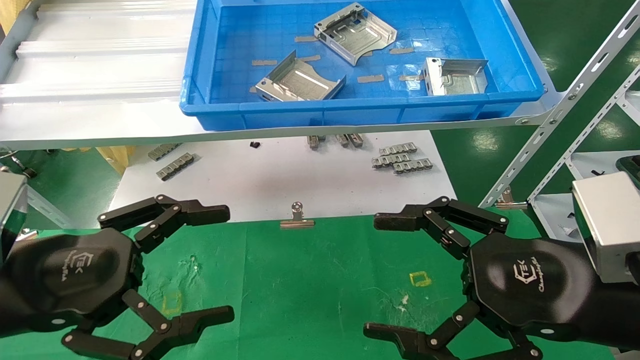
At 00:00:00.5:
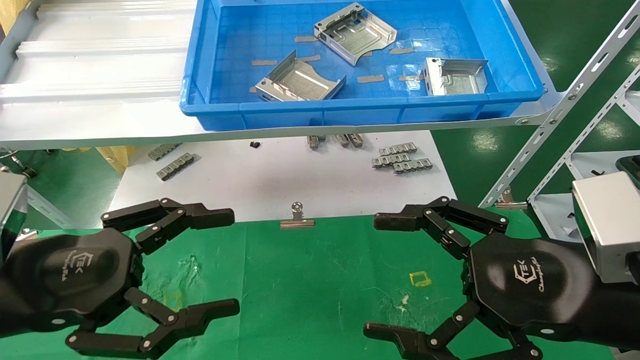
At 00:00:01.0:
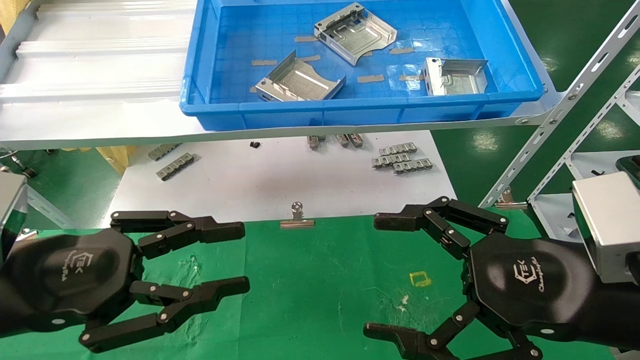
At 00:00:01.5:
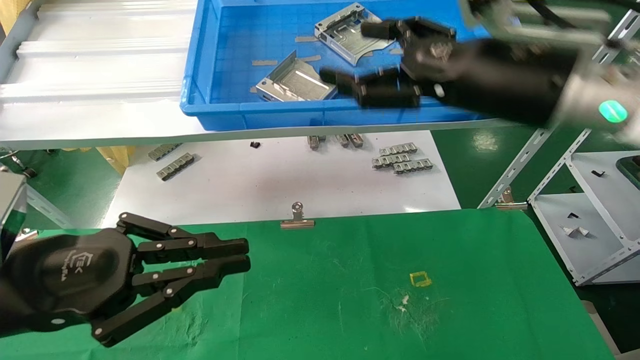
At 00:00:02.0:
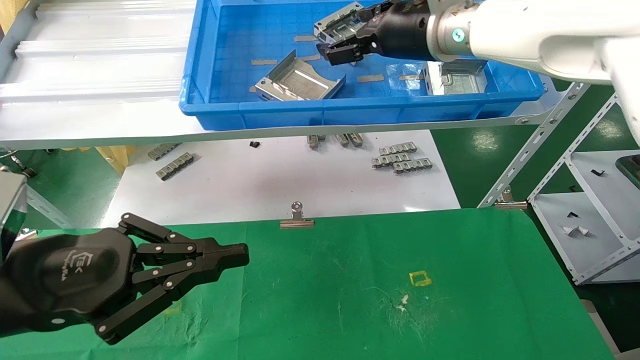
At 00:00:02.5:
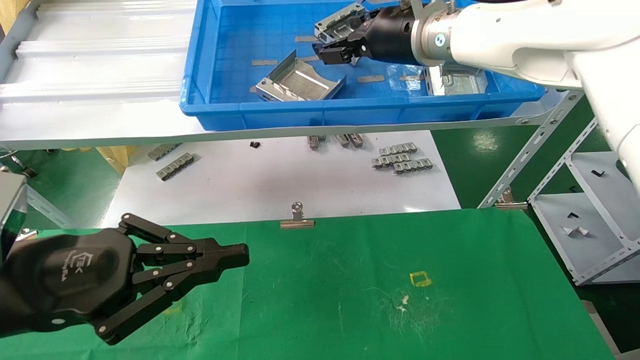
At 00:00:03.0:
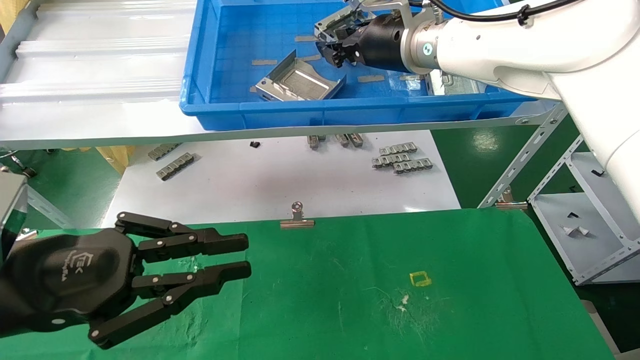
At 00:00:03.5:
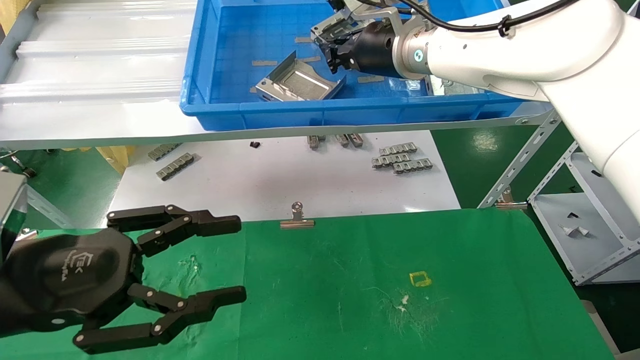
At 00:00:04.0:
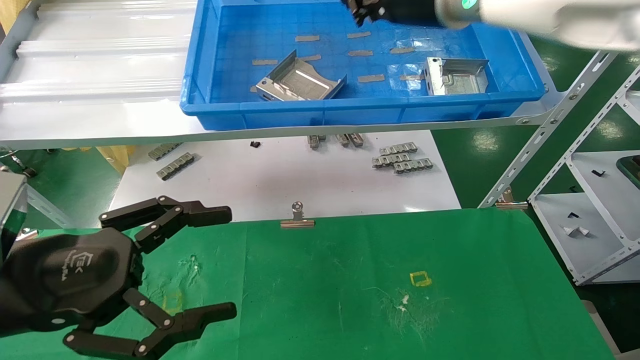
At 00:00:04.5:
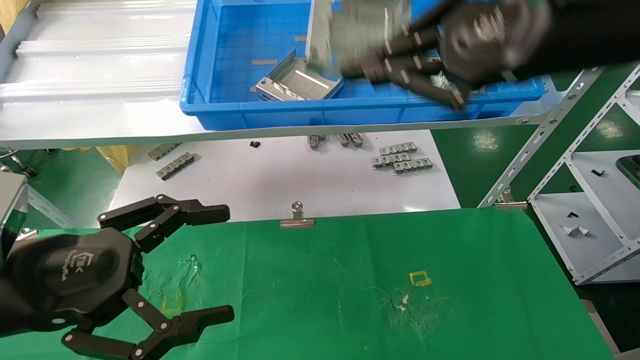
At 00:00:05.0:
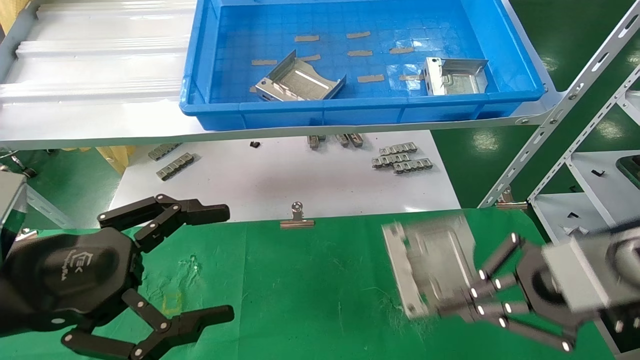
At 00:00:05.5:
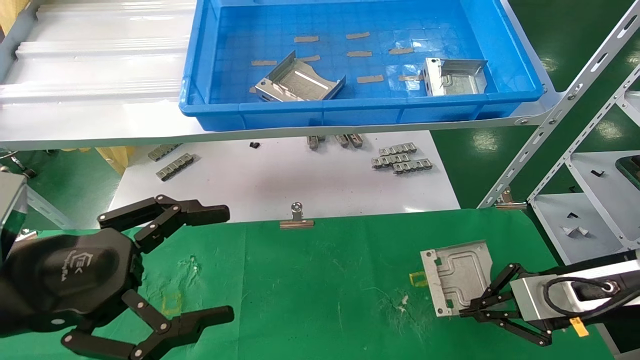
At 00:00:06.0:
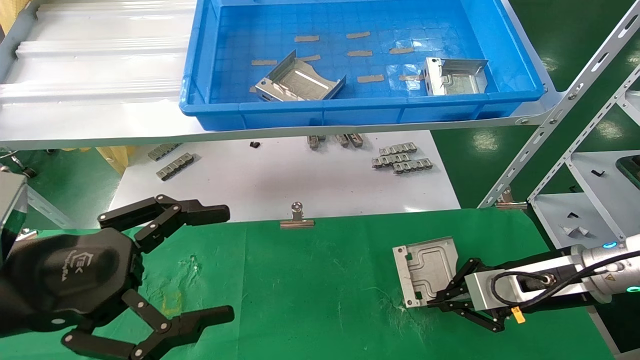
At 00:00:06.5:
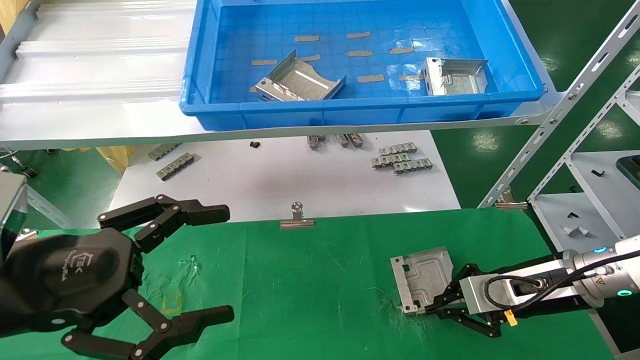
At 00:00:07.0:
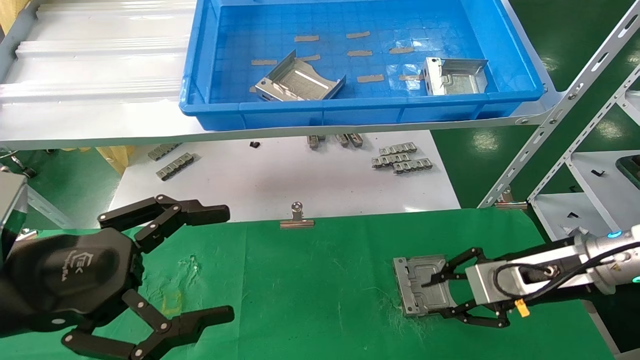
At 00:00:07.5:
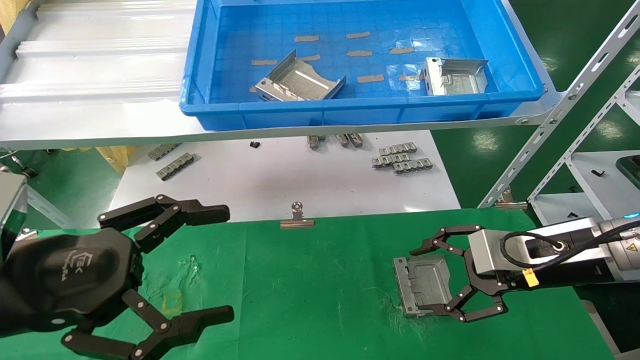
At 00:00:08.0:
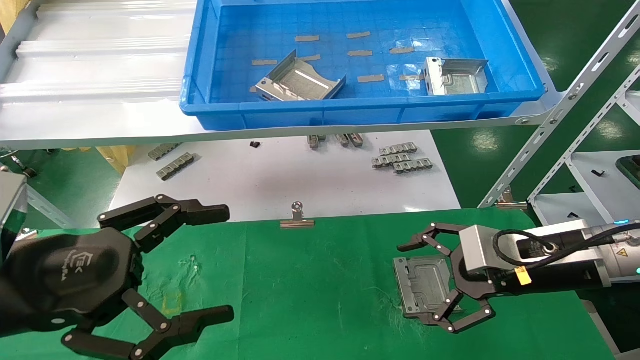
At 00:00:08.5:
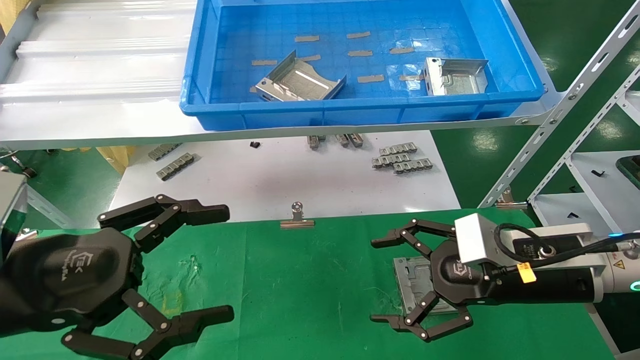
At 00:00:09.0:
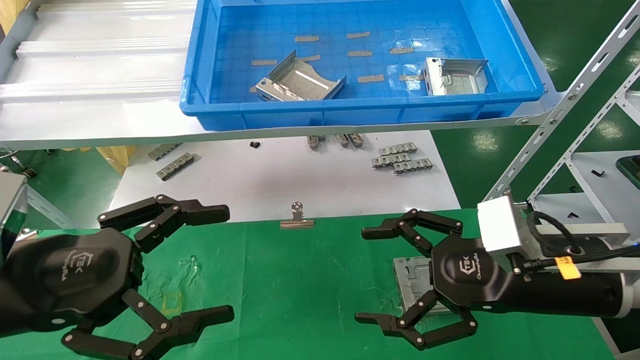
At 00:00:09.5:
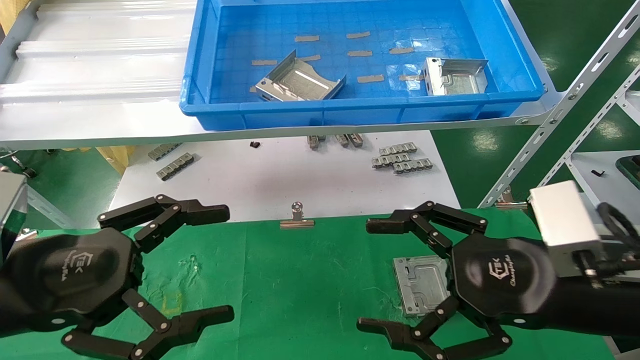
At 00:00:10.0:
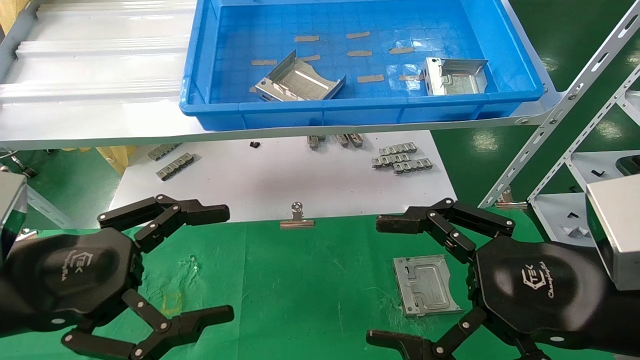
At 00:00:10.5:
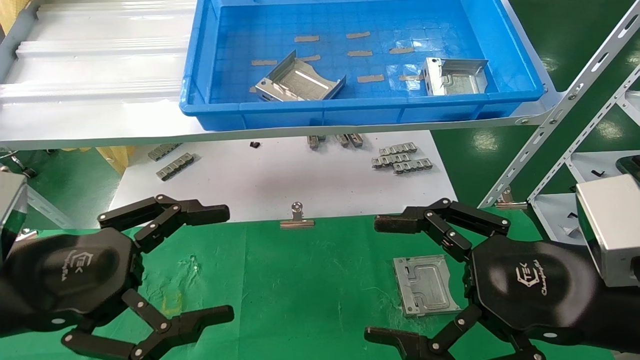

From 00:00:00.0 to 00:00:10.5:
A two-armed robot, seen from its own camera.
Task of the whole recording: use the mechanical arm to pick up the parts and place them on the table.
Step, from 00:00:01.5 to 00:00:04.0: Pick up the hard drive bracket from the feeding area.
Step, from 00:00:04.5 to 00:00:07.0: Place the hard drive bracket into the box.
From 00:00:00.0 to 00:00:02.0: The left gripper closes its fingers; the right gripper moves forward, upward and to the left, some 35 cm.
From 00:00:02.0 to 00:00:04.0: The left gripper opens up. Meanwhile the right gripper closes its fingers.
From 00:00:04.0 to 00:00:06.5: The right gripper shifts about 35 cm downward and to the right.
From 00:00:06.5 to 00:00:08.5: The right gripper moves to the left, backward and upward, roughly 10 cm, and opens its fingers.
From 00:00:08.5 to 00:00:10.5: The right gripper heads backward, covering some 10 cm.
